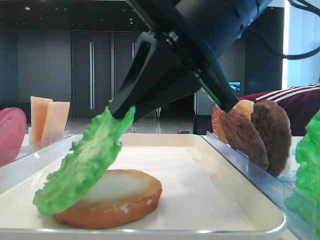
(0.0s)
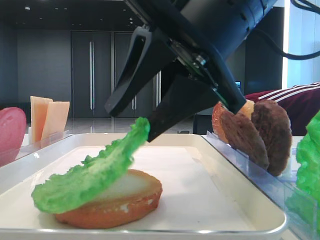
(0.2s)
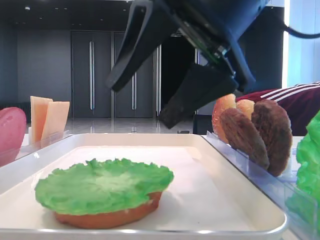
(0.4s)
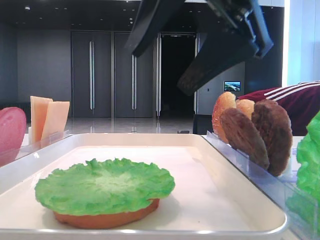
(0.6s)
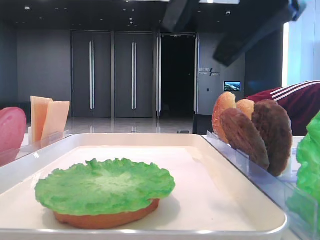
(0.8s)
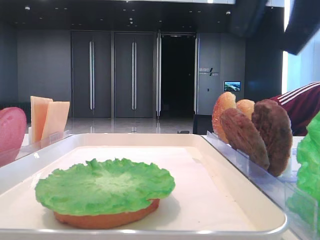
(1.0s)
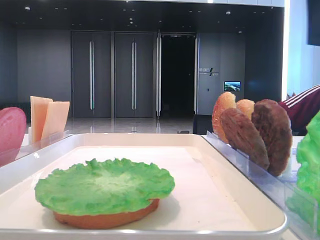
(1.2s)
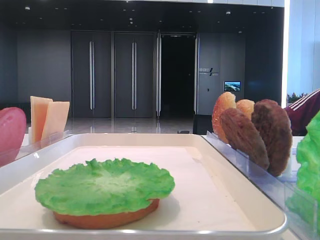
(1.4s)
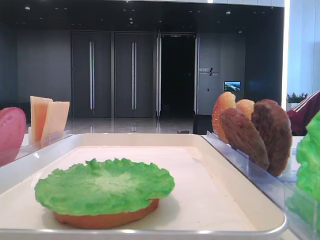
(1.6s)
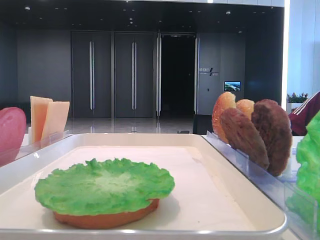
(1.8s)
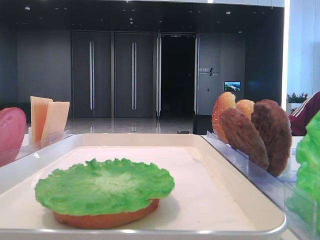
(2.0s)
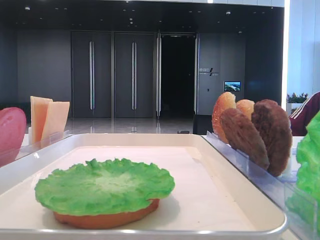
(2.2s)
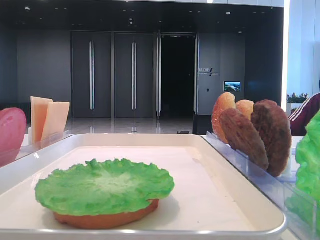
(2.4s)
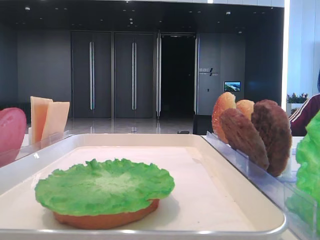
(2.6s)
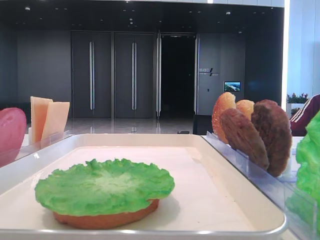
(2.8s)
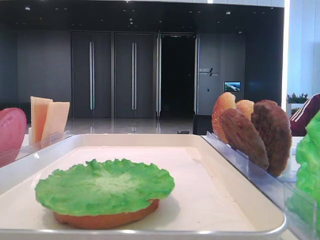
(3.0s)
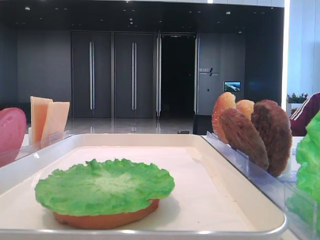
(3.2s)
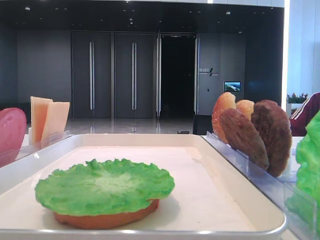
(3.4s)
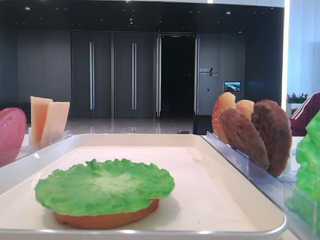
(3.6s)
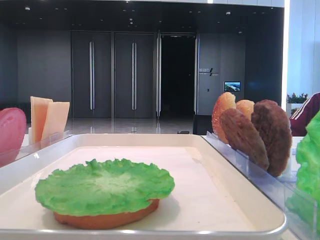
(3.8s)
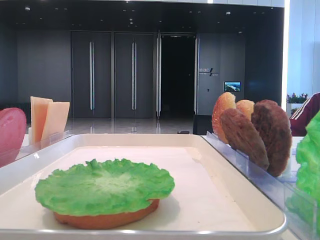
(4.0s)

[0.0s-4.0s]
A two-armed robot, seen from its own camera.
0.0s to 1.4s: The right gripper is displaced to the right and upward by about 20 cm, and opens its fingers.
1.4s to 2.6s: The right gripper moves backward, some 20 cm.
